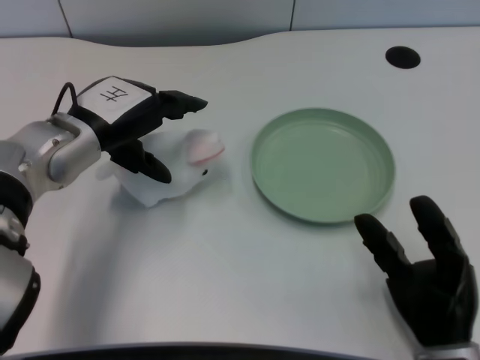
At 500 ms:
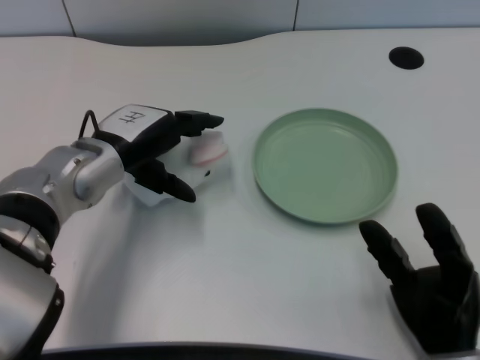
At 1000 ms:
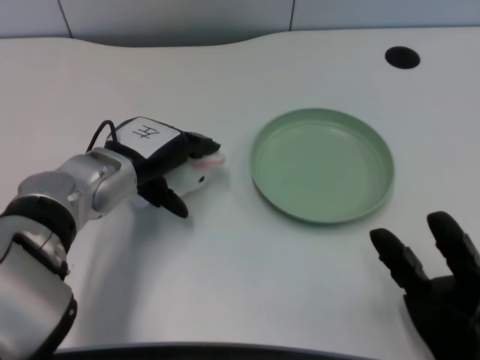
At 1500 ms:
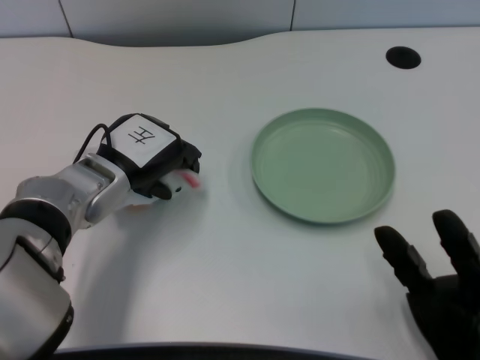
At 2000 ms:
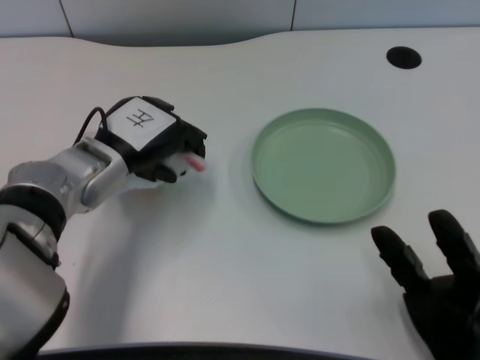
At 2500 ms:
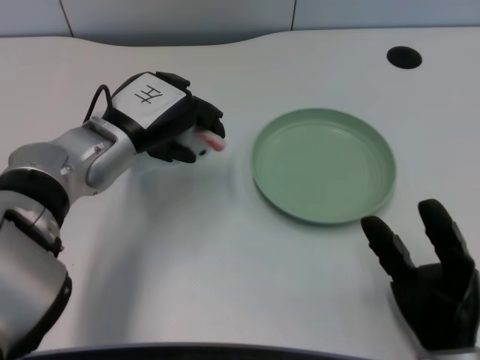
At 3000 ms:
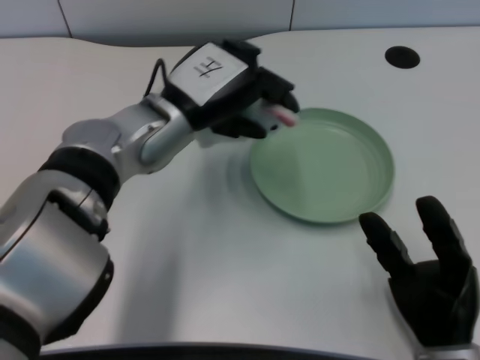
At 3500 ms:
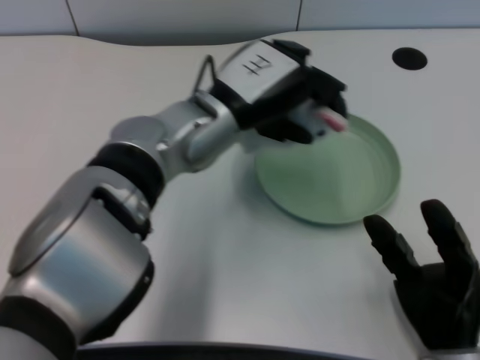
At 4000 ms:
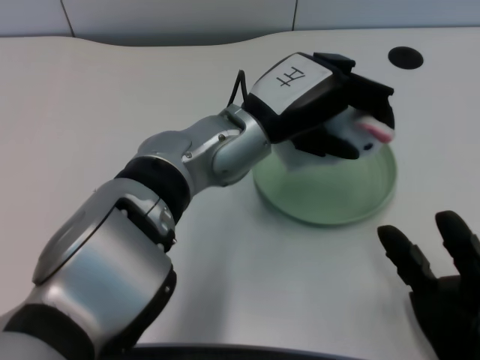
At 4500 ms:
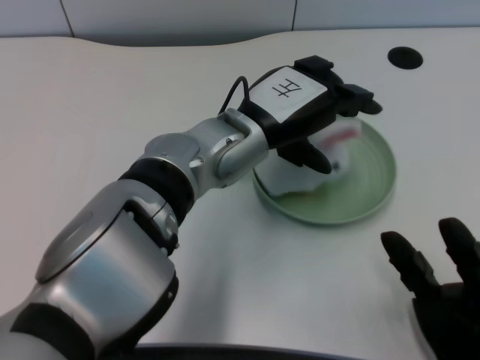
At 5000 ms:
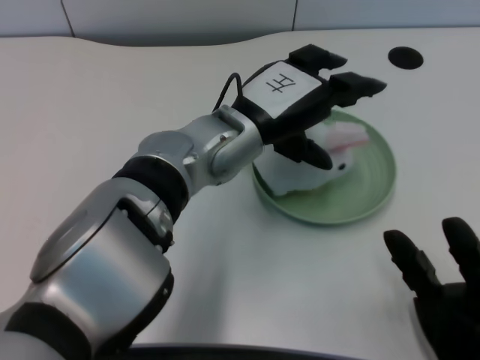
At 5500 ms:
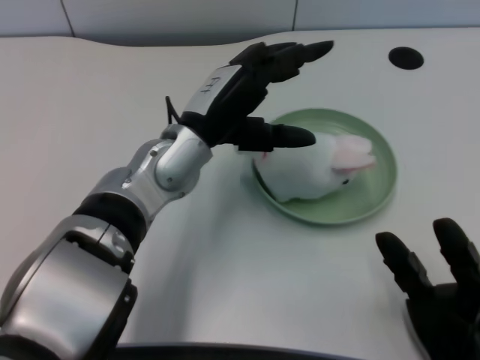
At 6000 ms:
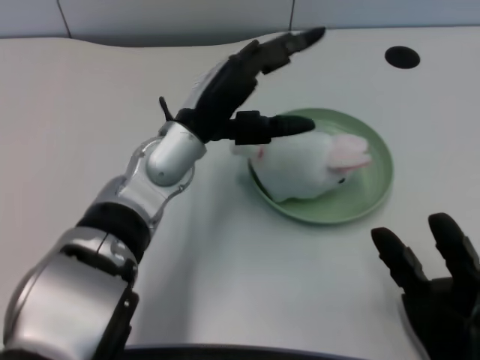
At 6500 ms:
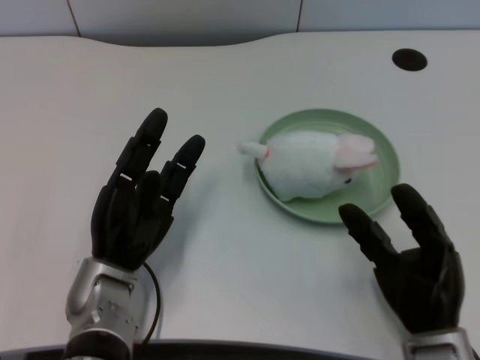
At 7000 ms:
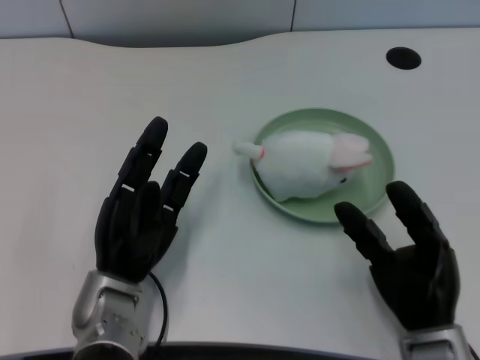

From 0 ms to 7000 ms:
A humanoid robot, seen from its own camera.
Task of the whole recording: pick up the rabbit doll from the table and place it on the plate.
Step, from 0 ms to 2000 ms: Grasp the rabbit doll with the left gripper.
Step, from 2500 ms to 4500 ms: Place the rabbit doll into the plate with the left gripper.
From 2000 ms to 3500 ms: The left hand moves to the right, approximately 10 cm.
From 5000 ms to 7000 ms: The left hand heads downward, to the left and backward, covering about 20 cm.

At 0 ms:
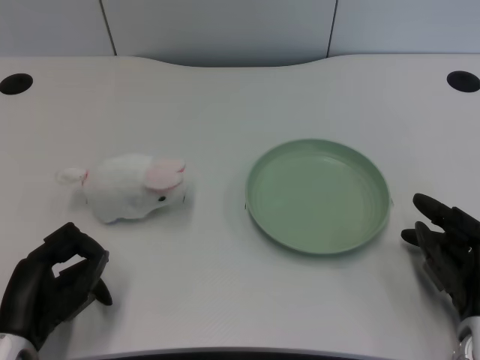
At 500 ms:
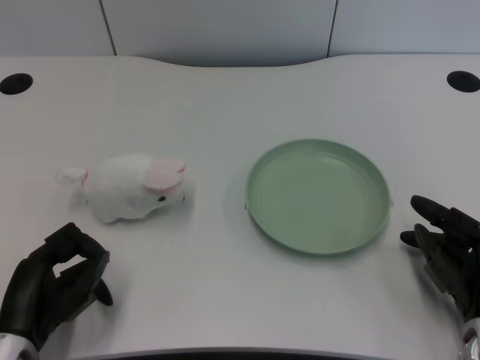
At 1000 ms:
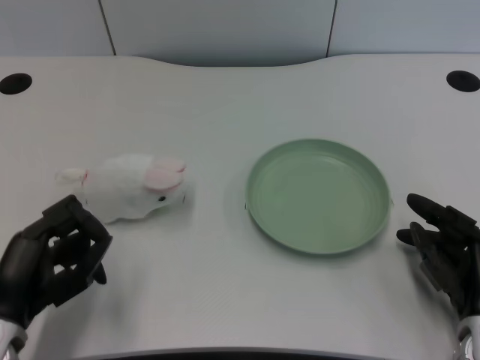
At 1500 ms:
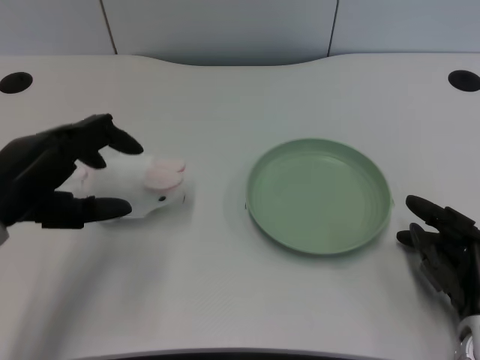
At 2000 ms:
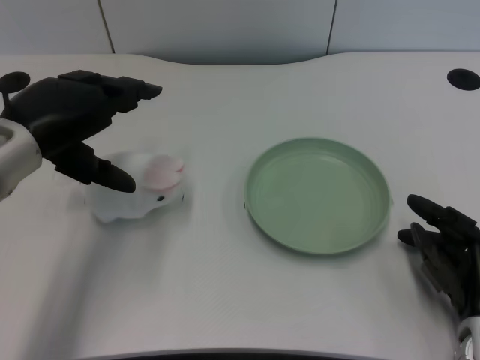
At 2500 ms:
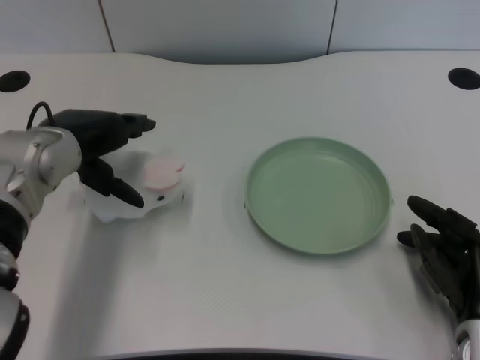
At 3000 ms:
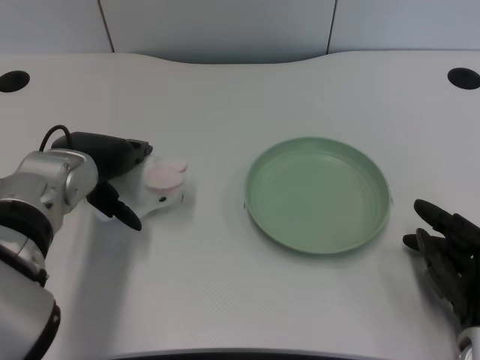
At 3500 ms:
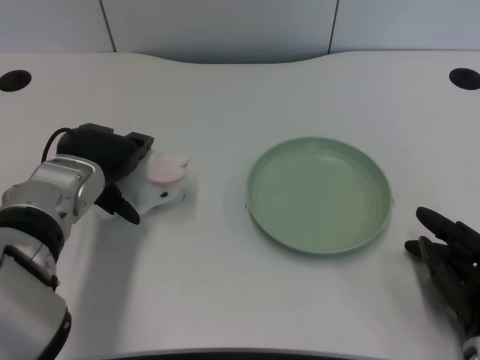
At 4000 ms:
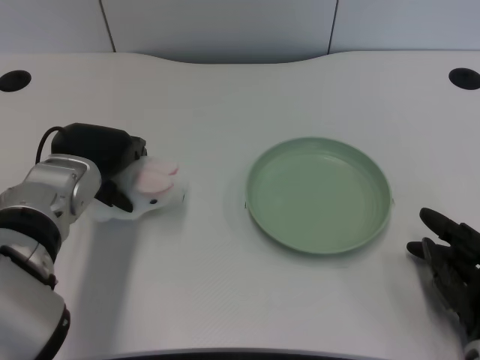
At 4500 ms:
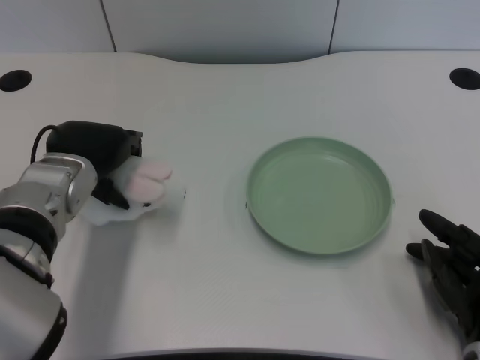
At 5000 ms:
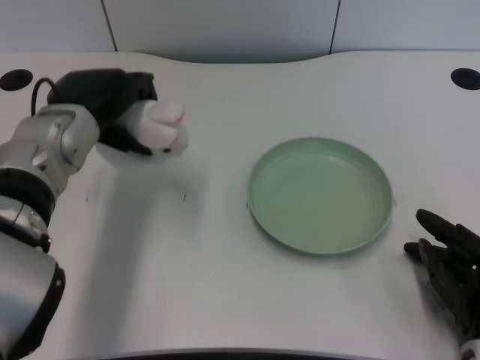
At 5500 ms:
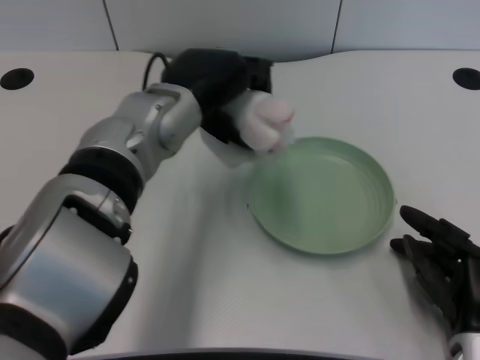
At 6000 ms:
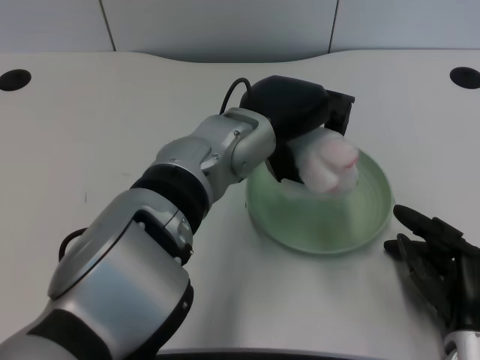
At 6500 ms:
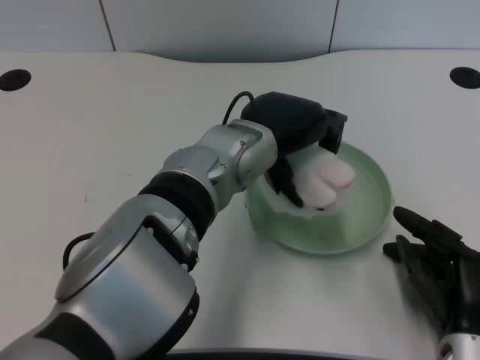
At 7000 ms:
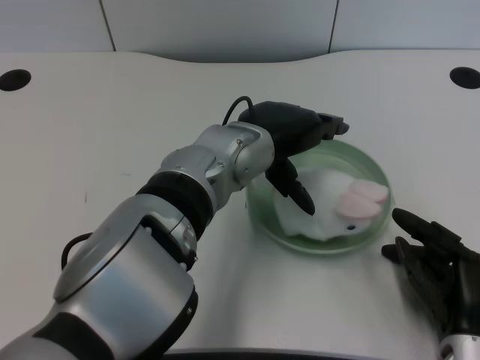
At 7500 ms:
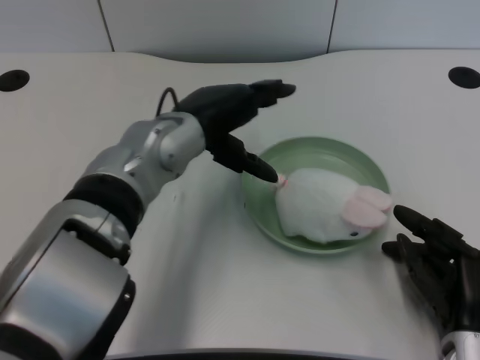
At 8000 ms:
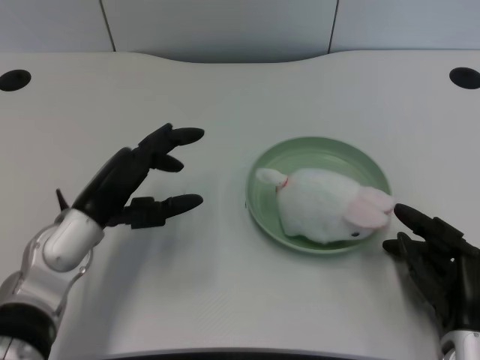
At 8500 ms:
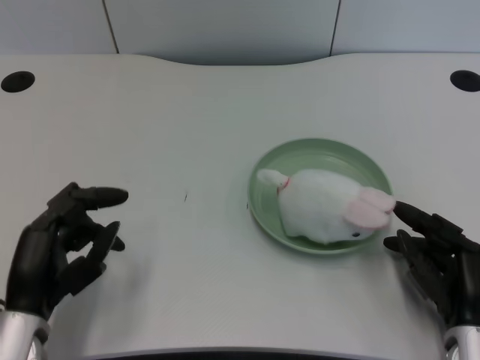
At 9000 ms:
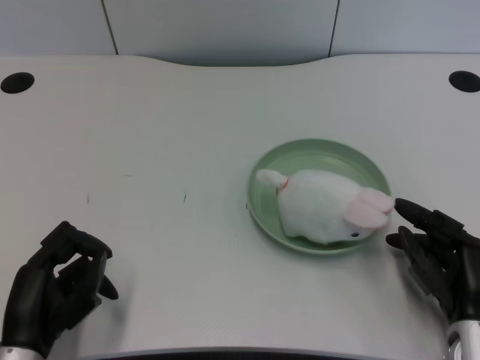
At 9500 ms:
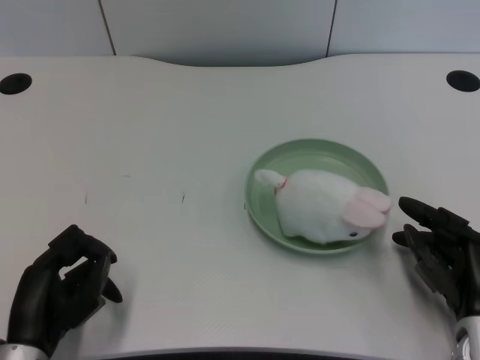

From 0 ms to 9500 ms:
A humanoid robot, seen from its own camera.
Task of the whole recording: pick up the rabbit doll from the table and place it on the plate.
Step, from 1000 ms to 4500 ms: Grasp the rabbit doll with the left gripper.
Step, from 5000 ms to 6500 ms: Place the rabbit doll into the plate with the left gripper.
From 2000 ms to 4000 ms: The left hand moves downward, approximately 10 cm.
From 4000 ms to 5500 ms: The left hand shifts about 10 cm to the right and upward.
From 7500 ms to 9500 ms: The left hand travels backward, to the left and downward by approximately 25 cm.
